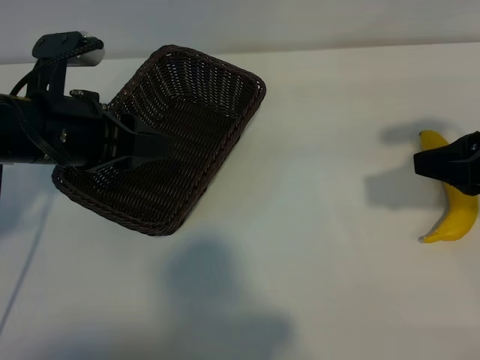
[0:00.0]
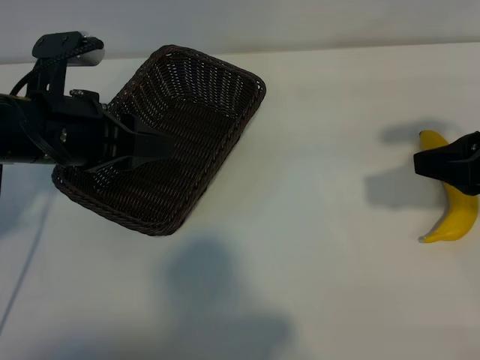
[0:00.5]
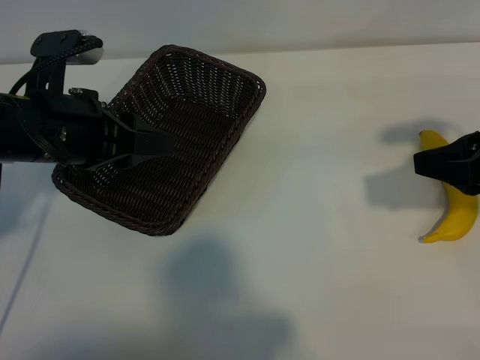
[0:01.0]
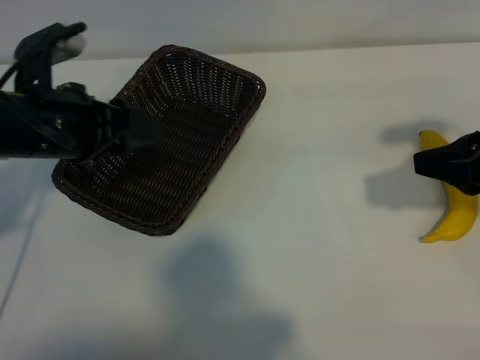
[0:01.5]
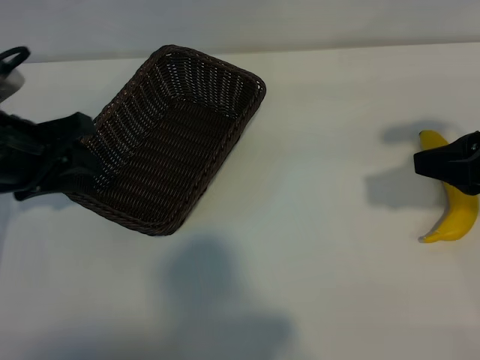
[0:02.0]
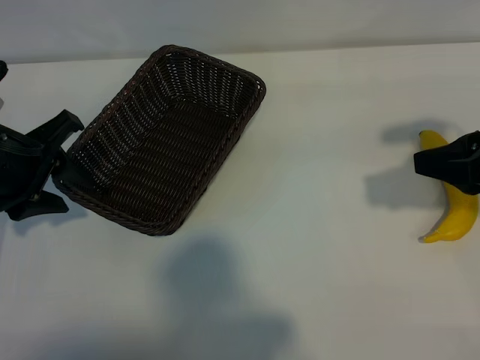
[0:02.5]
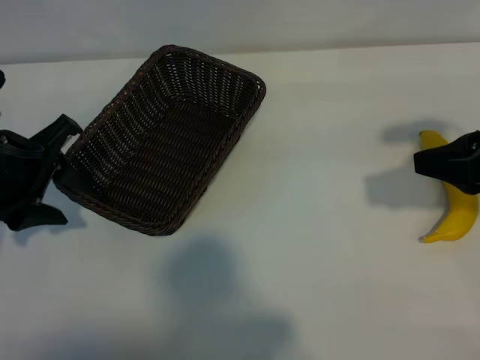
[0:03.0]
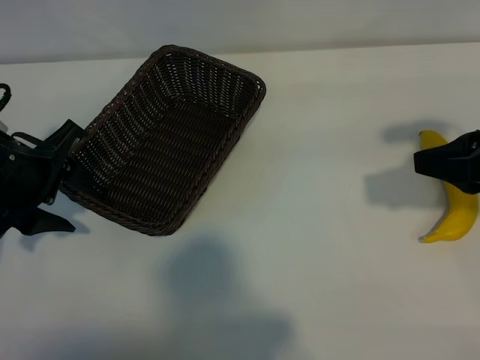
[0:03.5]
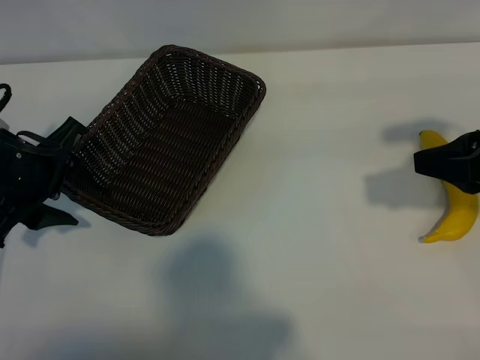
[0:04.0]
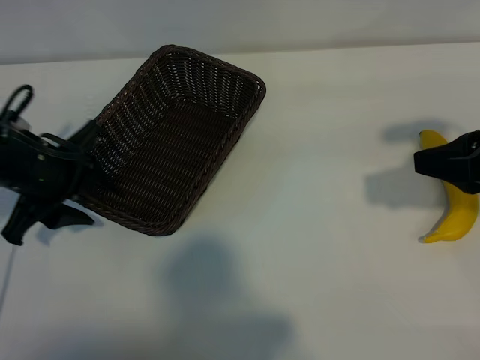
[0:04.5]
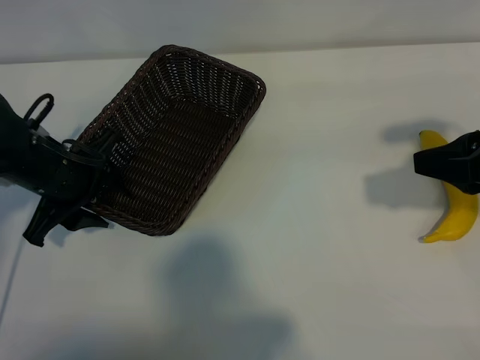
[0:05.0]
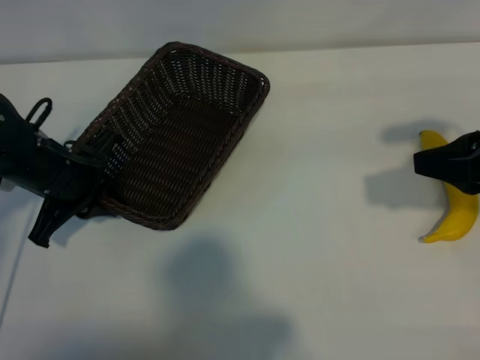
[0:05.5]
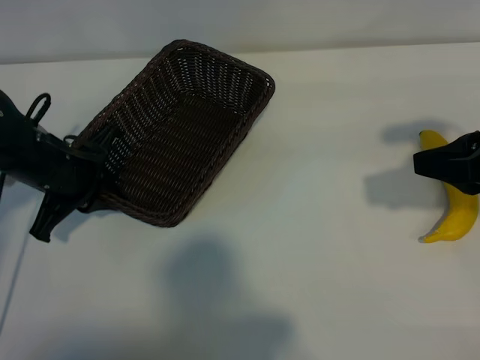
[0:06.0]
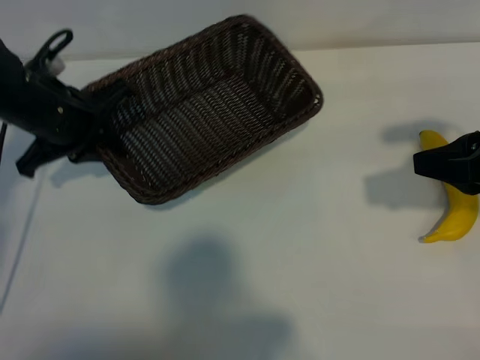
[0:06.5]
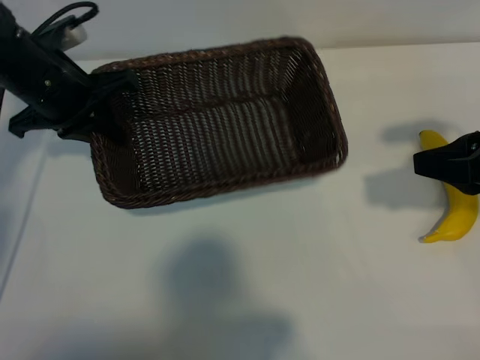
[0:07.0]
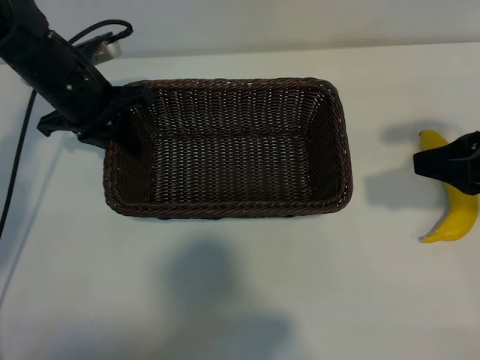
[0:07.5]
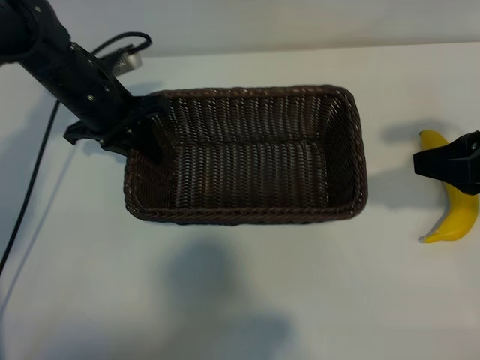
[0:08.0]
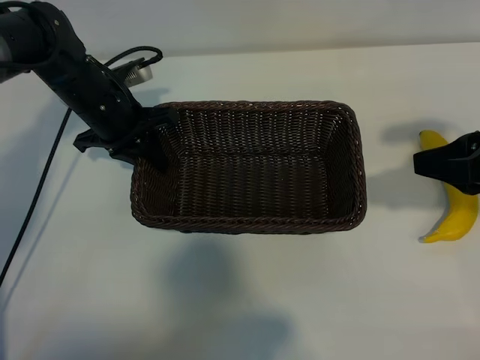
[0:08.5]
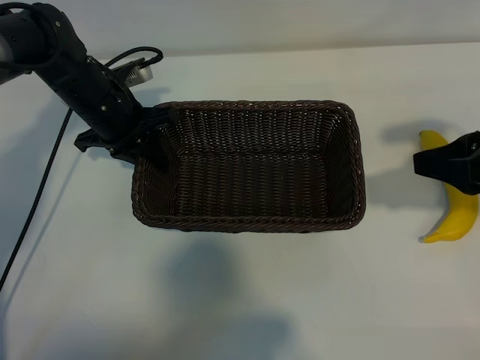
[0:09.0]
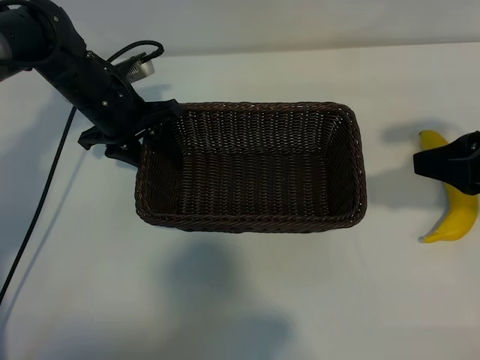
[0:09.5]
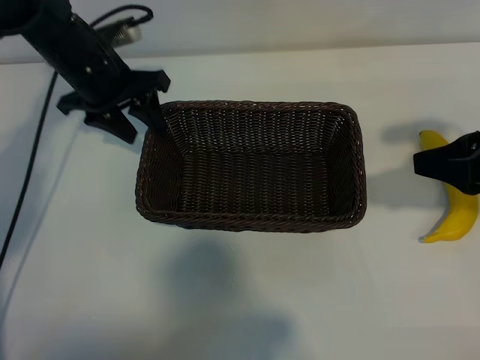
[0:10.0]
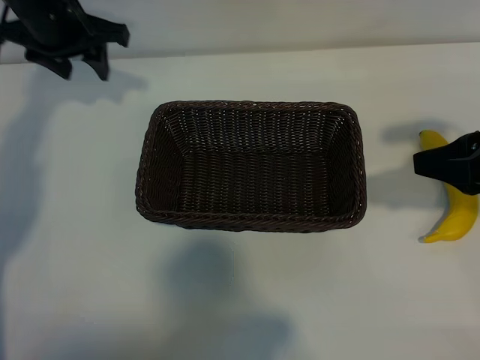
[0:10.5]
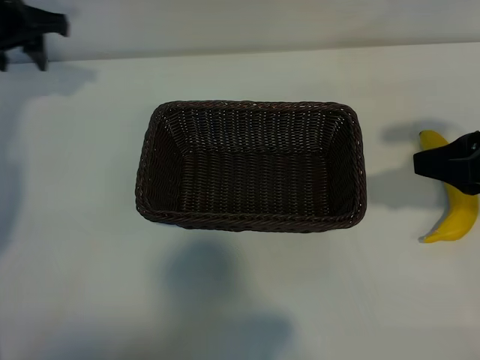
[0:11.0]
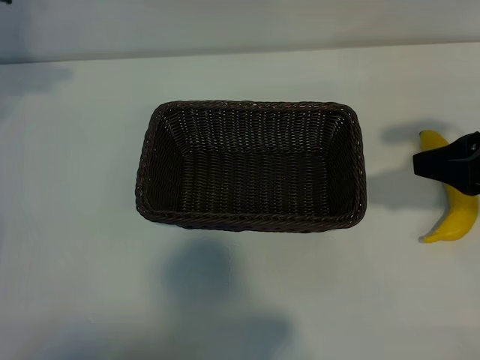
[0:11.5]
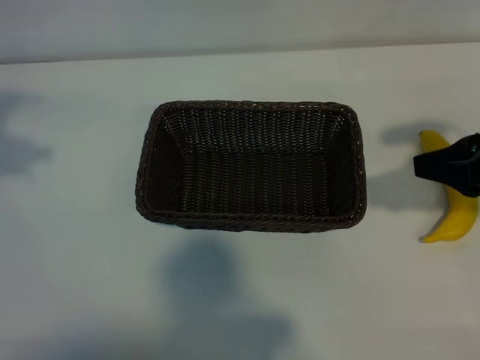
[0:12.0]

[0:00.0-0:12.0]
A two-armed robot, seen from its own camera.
Task of the whole recording: pick up the banana and put it into the basket.
Step, 0:01.5 to 0:05.5: Grasp the basket with the left gripper.
Step, 0:06.0 to 0:10.0: Place the basket in the center of the table with the left gripper.

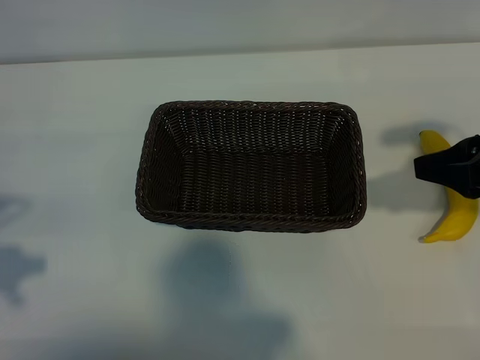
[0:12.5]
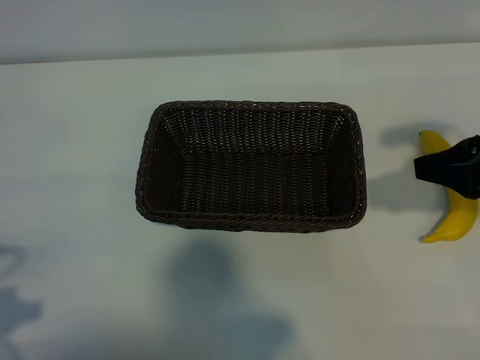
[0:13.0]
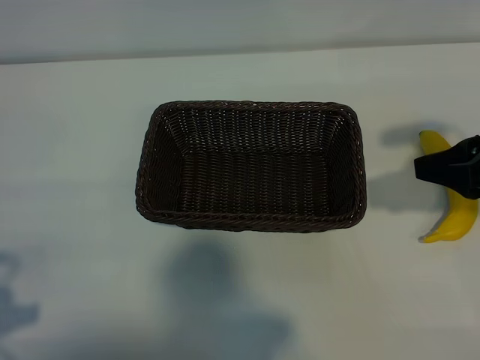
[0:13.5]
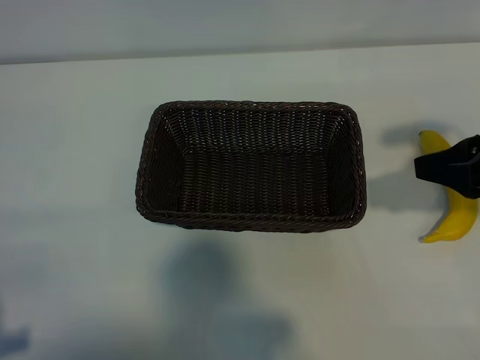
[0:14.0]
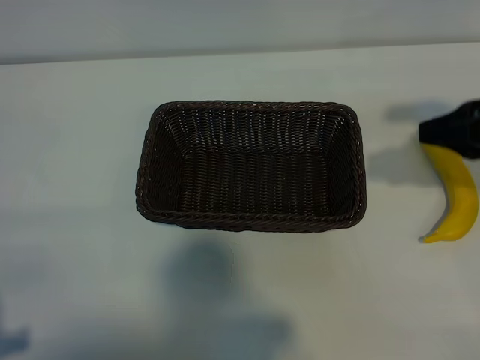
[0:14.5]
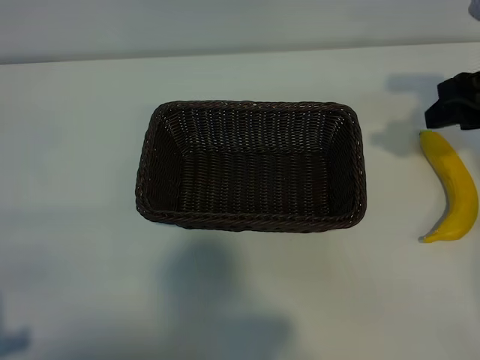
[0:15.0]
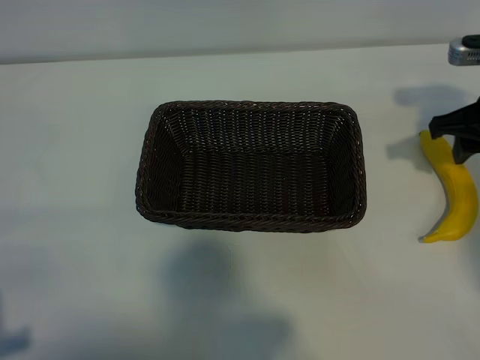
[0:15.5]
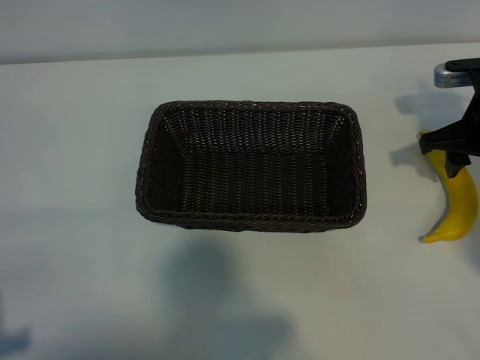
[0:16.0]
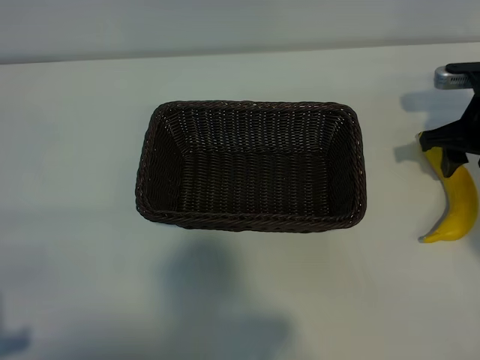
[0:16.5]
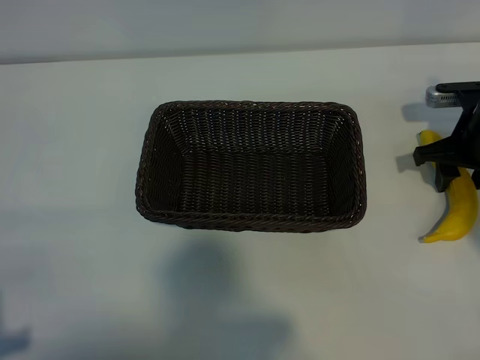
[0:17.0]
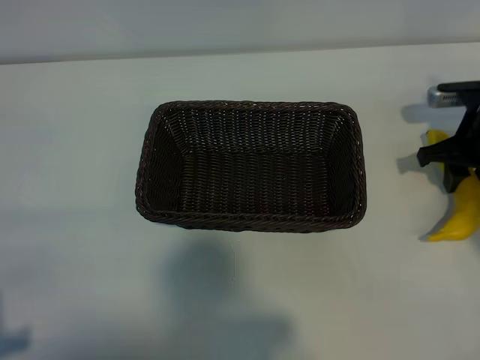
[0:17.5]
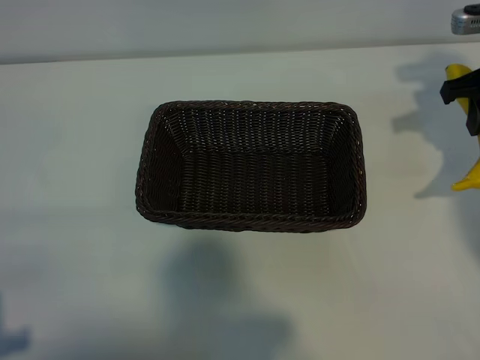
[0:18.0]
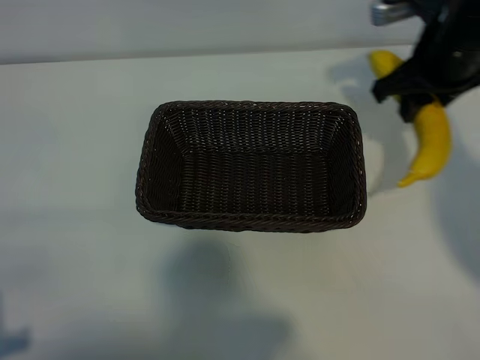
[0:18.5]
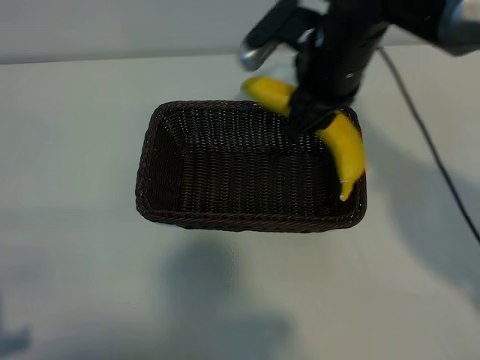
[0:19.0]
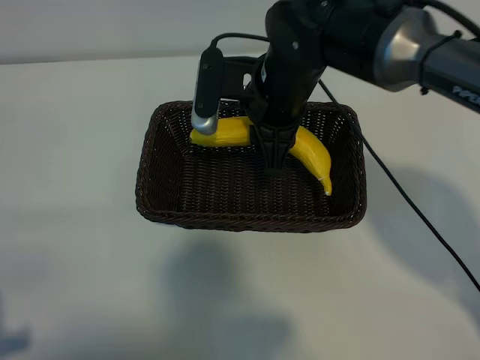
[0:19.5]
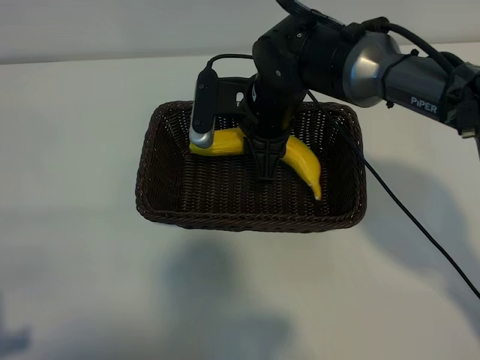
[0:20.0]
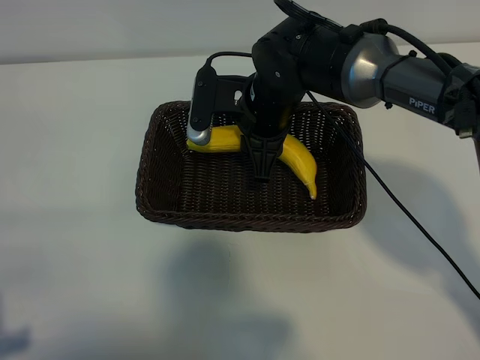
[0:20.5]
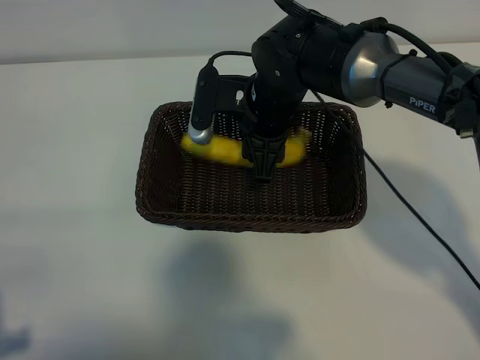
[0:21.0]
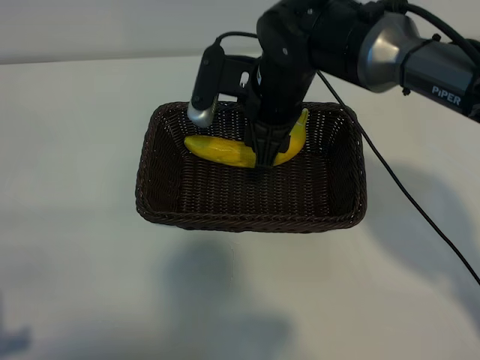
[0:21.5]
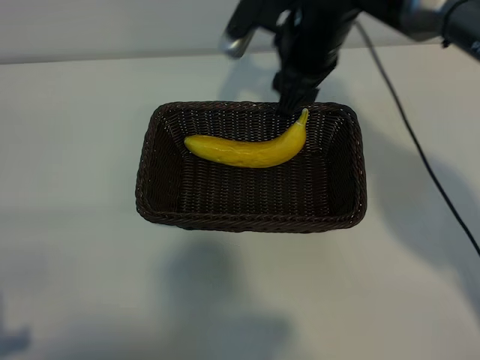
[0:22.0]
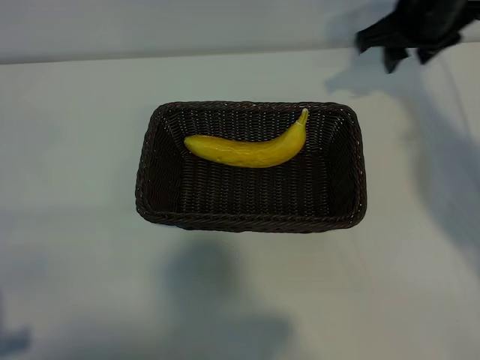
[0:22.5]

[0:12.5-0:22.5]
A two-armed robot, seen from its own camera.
Task of the whole recording: pick up the banana and put it into the basket.
Step, 0:12.5 to 0:17.0: Grasp the banana with right gripper.
Step, 0:17.5 to 0:21.5: Place the banana in the basket with right gripper.
